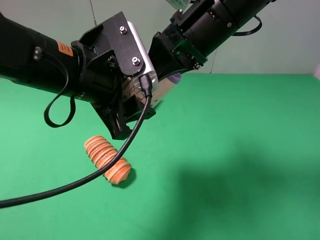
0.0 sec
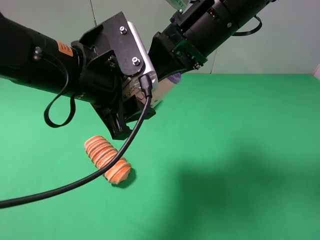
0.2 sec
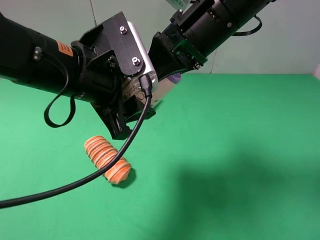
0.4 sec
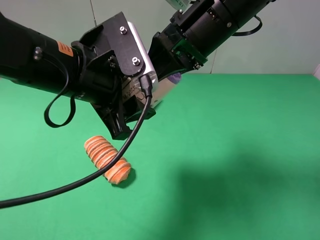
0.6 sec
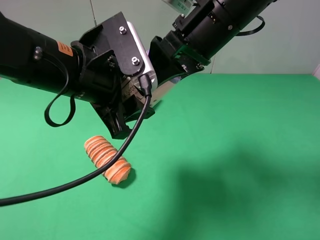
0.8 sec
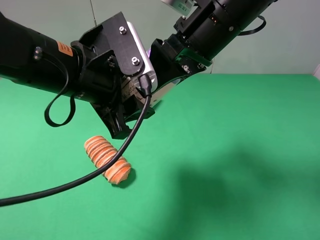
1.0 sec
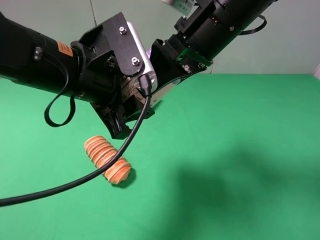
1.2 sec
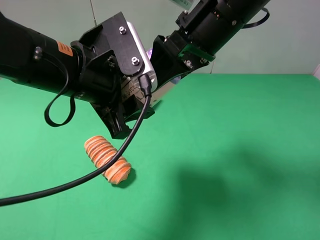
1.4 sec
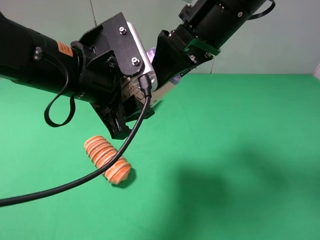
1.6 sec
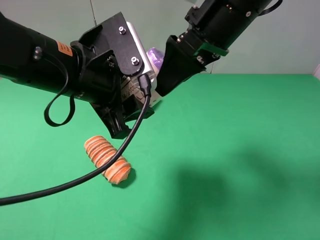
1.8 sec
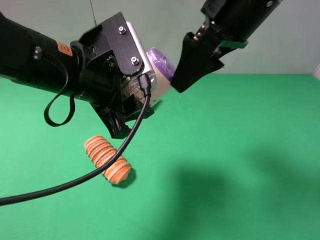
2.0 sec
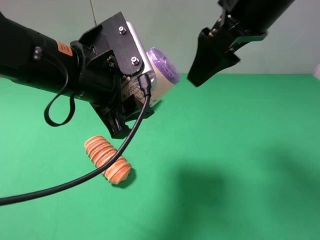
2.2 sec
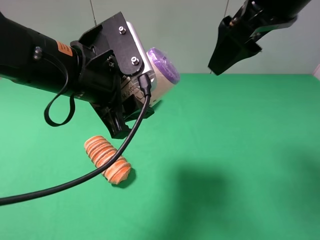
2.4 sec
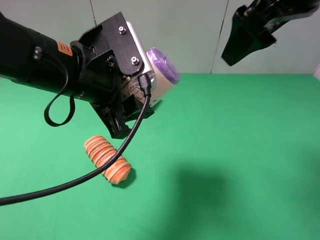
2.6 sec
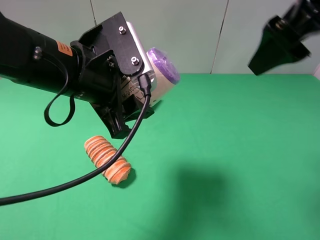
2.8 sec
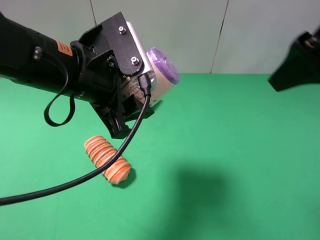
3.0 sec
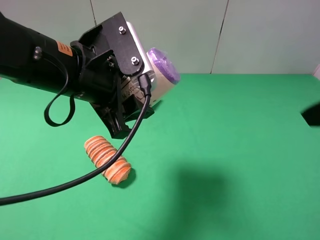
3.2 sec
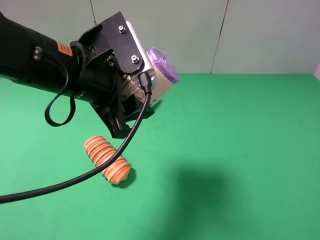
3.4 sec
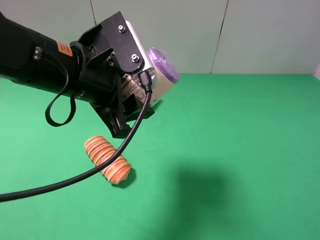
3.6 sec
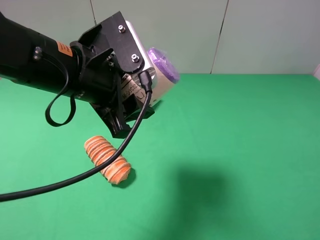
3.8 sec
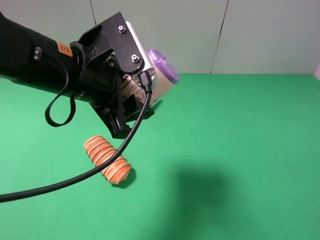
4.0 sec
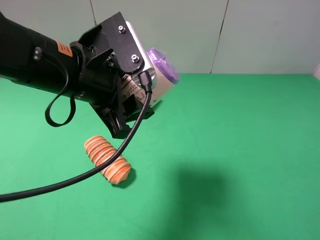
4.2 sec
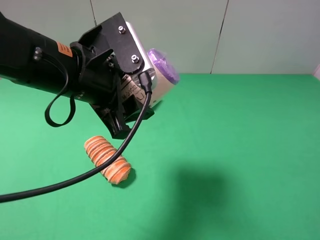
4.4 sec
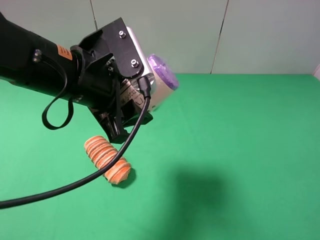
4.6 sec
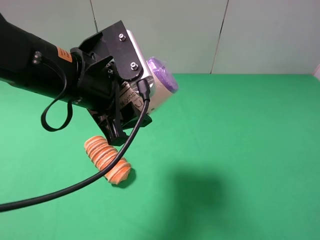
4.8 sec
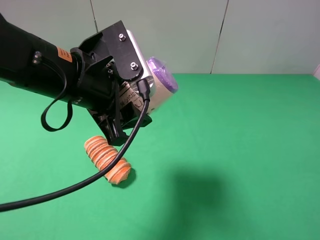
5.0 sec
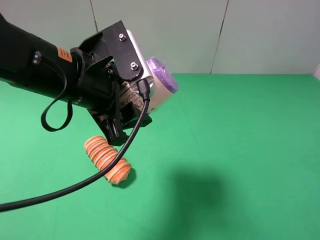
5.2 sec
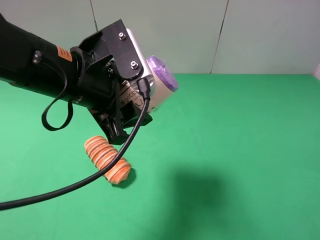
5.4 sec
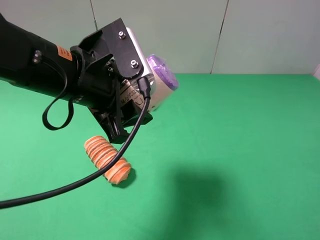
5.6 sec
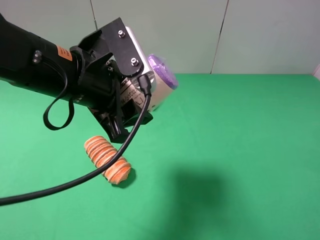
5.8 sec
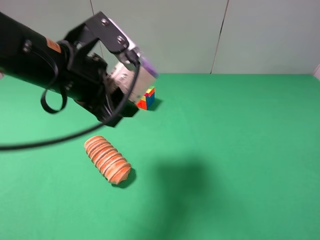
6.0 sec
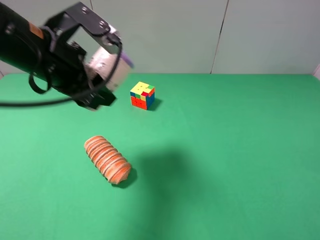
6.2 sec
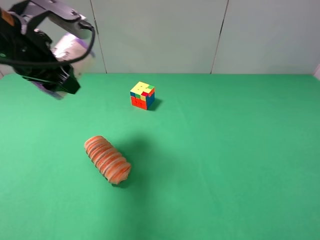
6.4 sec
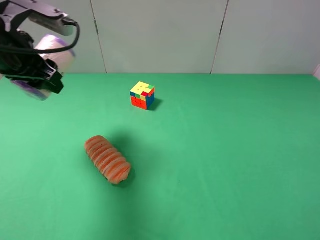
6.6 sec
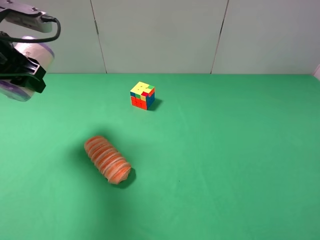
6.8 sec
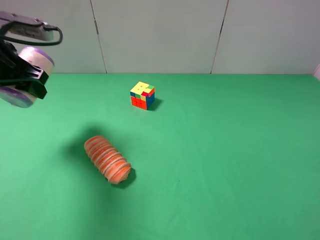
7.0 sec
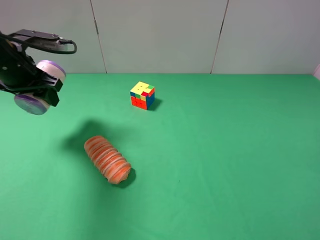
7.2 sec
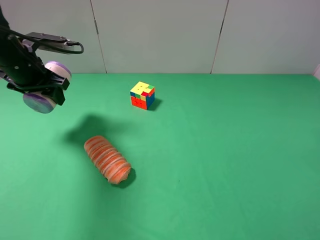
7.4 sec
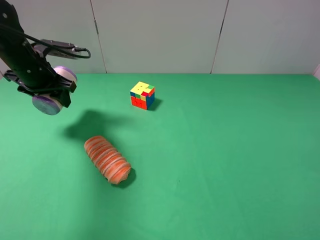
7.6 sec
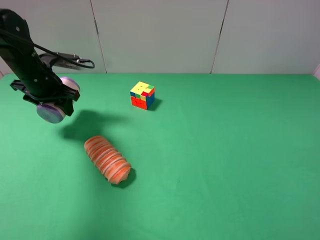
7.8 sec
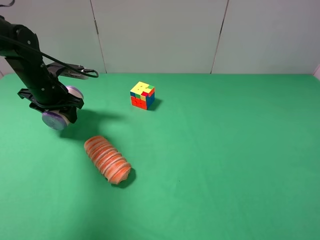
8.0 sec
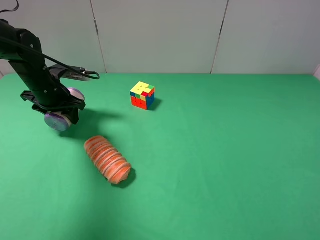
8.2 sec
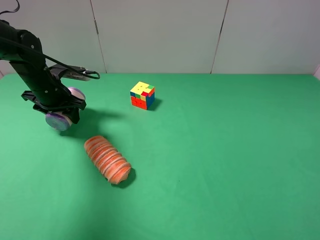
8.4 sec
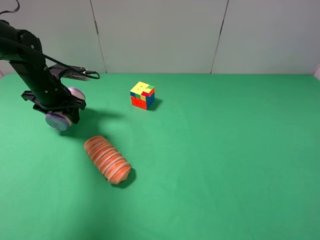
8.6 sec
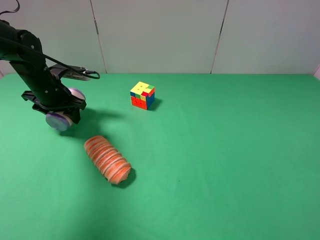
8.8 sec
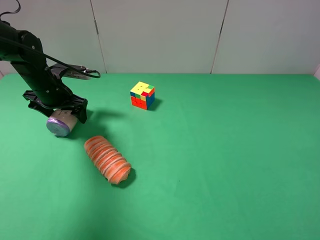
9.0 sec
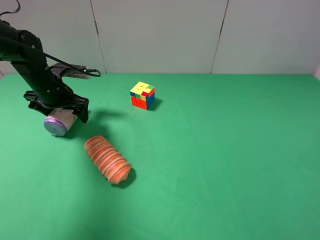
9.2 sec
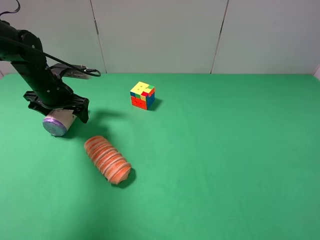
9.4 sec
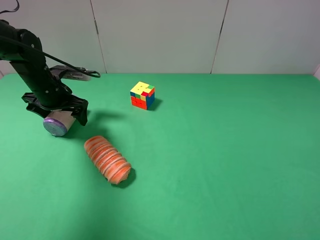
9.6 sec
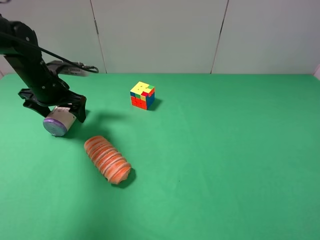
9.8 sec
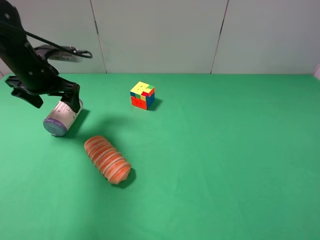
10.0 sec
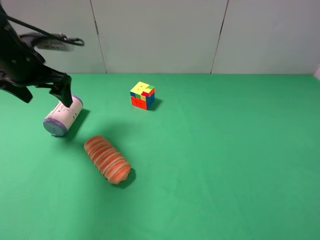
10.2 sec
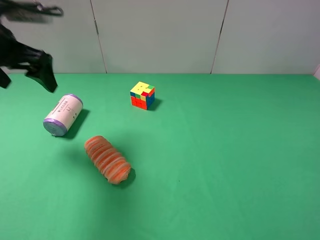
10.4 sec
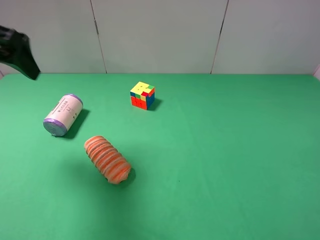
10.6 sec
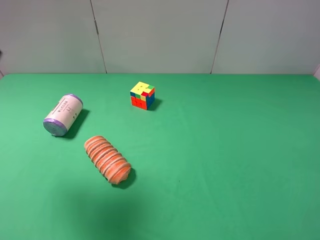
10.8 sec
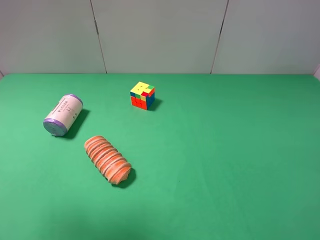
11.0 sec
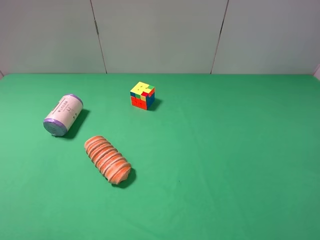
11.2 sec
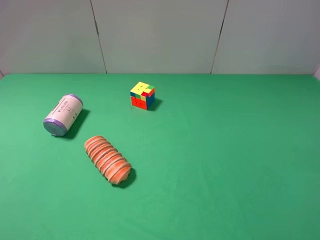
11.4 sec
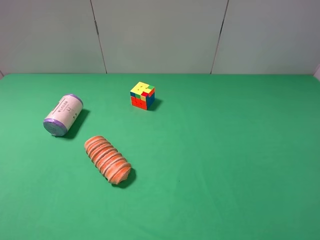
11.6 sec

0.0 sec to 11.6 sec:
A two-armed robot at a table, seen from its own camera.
Task of the whole recording: use the right gripper to pick up the item and transfer it from the right gripper to the left gripper.
Step, 1.8 sec to 9.0 sec: The left gripper places purple garbage bag on the left side of the table.
0.0 sec to 1.4 sec: The right gripper opens up.
1.4 sec to 2.8 sec: The right gripper shifts roughly 15 cm to the right, backward and upward.
2.8 sec to 4.4 sec: The right gripper moves backward, to the right and downward, about 25 cm.
5.8 sec to 7.2 sec: The left gripper goes some 20 cm to the left and forward.
7.2 sec to 8.8 sec: The left gripper moves downward, roughly 10 cm, and opens up.
8.8 sec to 10.2 sec: The left gripper shifts about 10 cm upward, and opens.
10.2 sec to 11.6 sec: The left gripper is displaced backward by approximately 35 cm.
